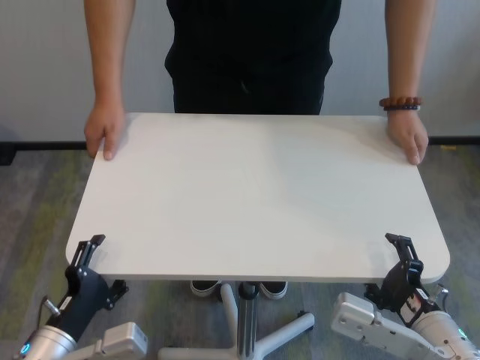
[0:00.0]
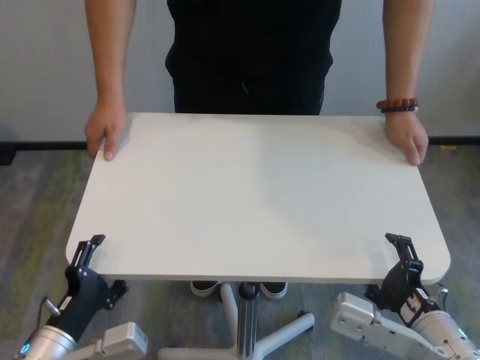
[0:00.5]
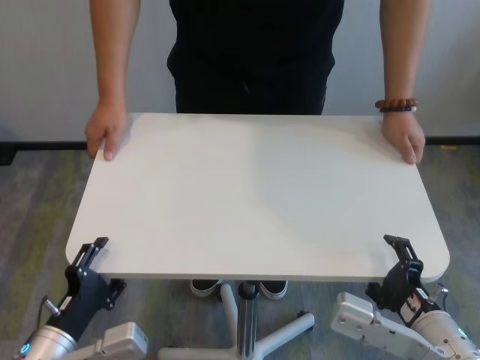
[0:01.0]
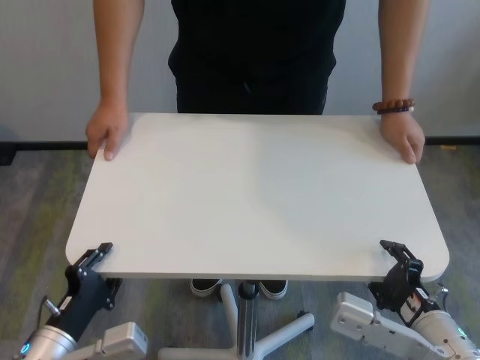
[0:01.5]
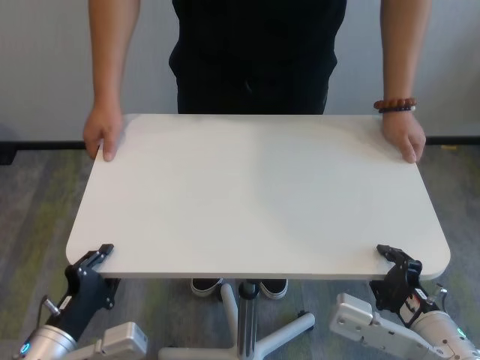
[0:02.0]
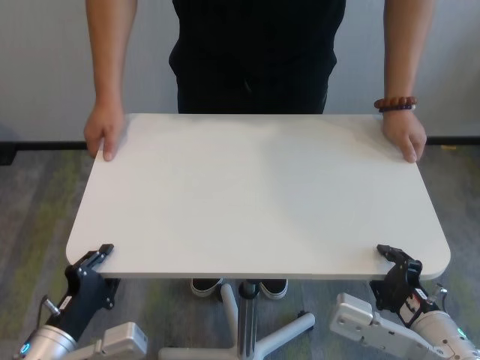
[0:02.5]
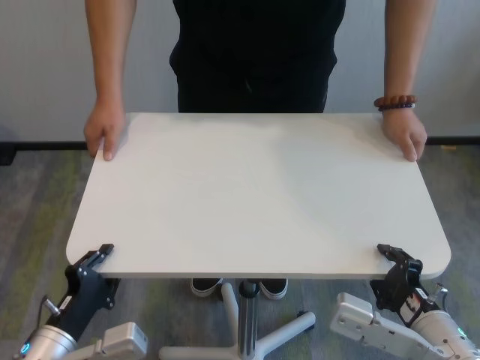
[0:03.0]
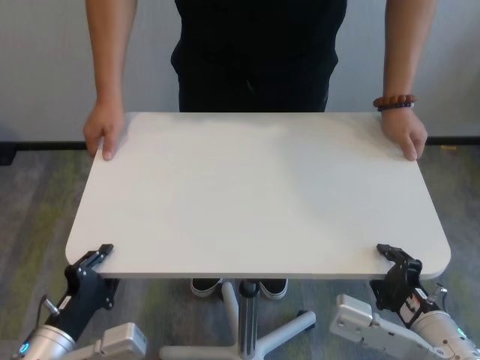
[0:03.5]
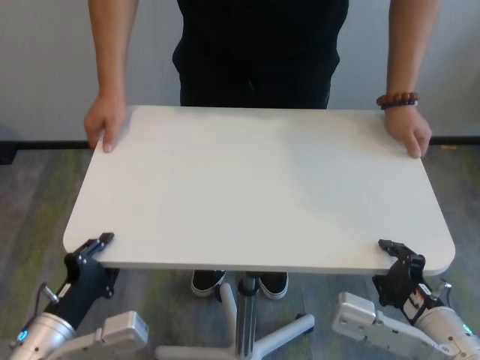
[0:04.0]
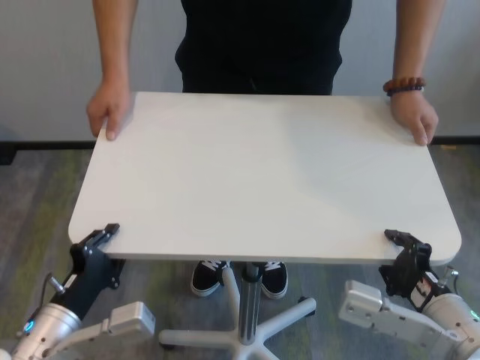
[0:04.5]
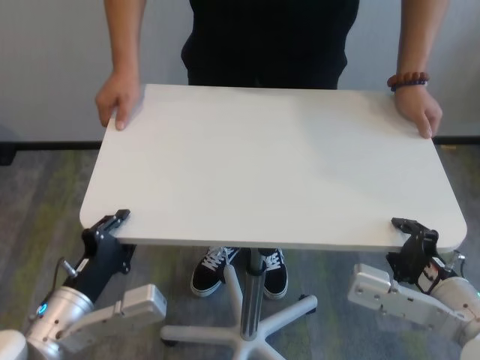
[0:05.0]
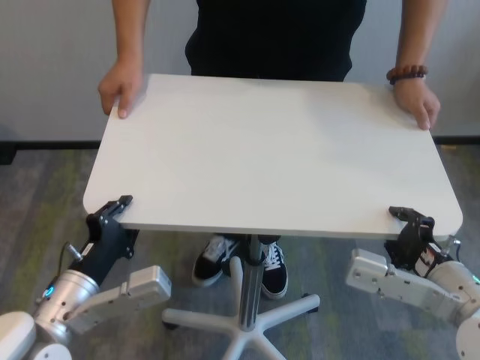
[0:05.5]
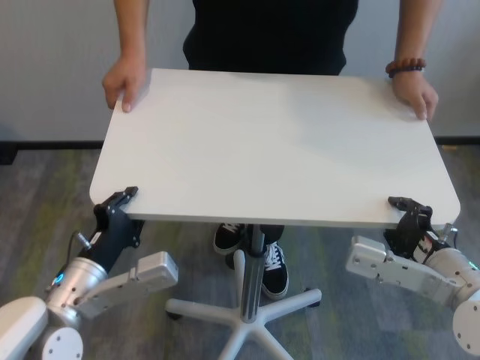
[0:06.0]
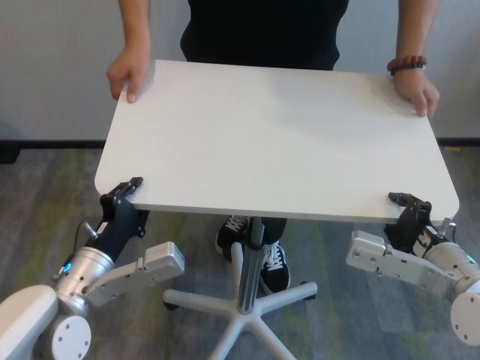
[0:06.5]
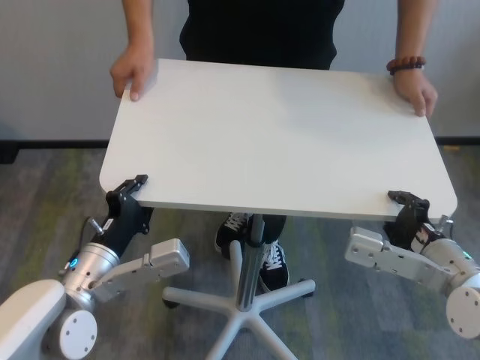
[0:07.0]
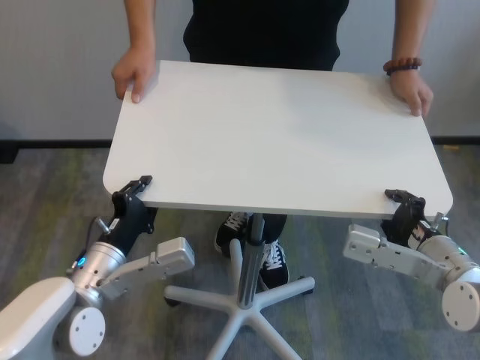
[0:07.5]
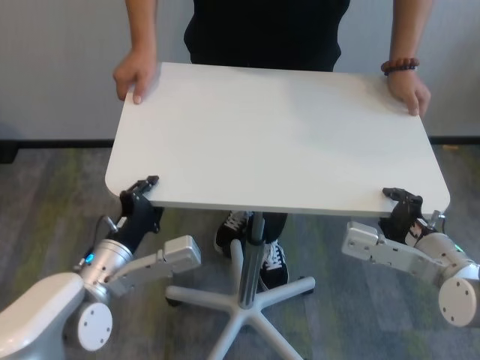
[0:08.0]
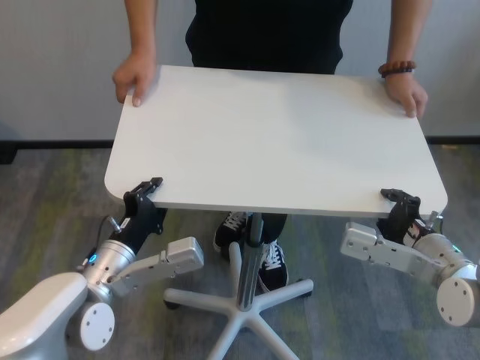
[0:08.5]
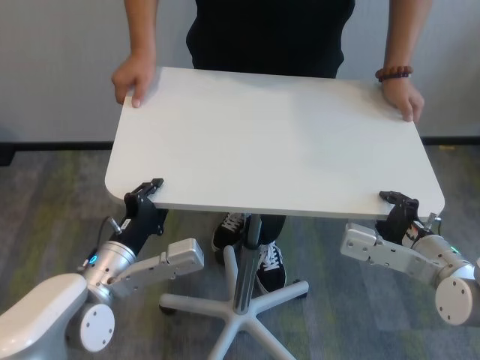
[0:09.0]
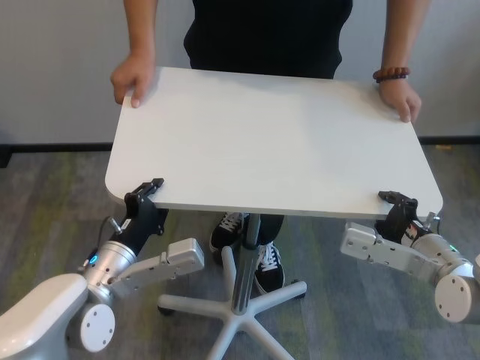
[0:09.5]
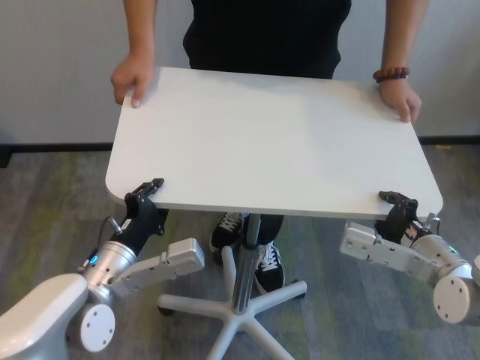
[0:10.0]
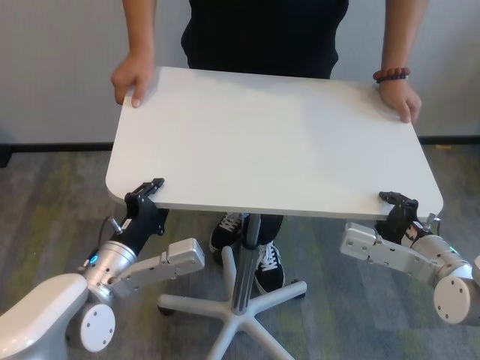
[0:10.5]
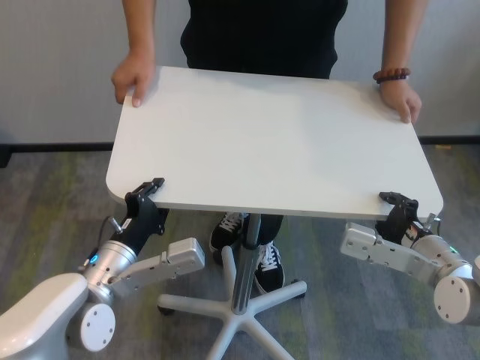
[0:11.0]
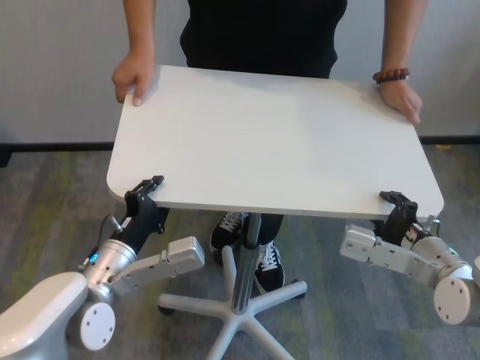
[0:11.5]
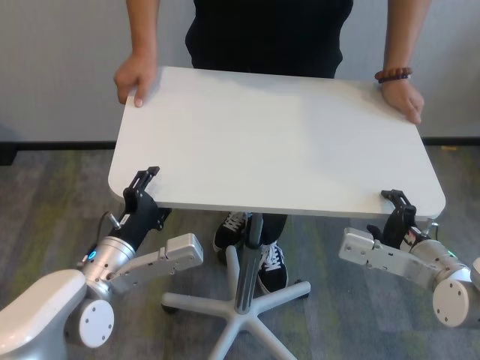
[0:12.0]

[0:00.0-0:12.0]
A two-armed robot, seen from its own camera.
Task of the whole recording: human machine collaborative table moving.
Step, 0:00.0 to 0:03.0: Grasp the table with both grippers.
